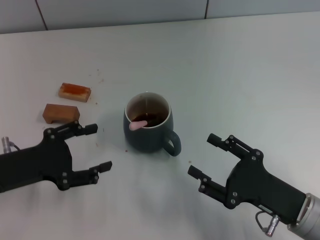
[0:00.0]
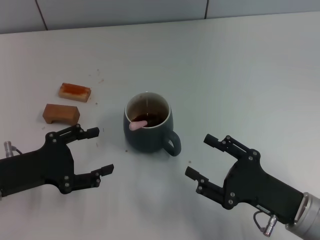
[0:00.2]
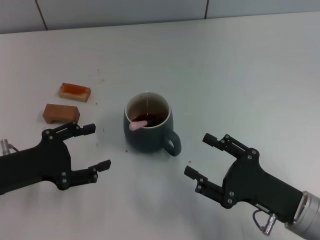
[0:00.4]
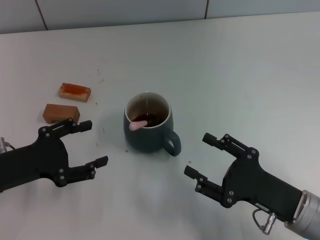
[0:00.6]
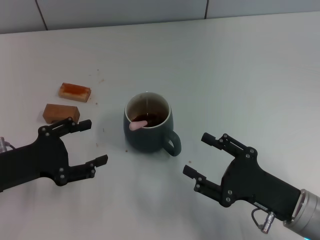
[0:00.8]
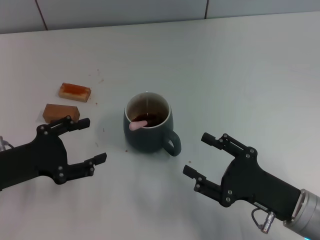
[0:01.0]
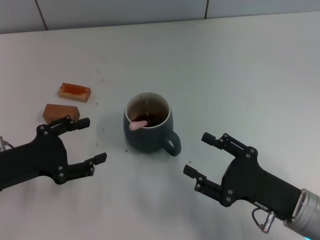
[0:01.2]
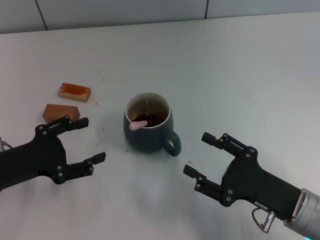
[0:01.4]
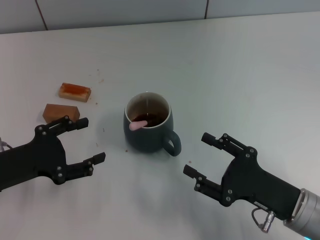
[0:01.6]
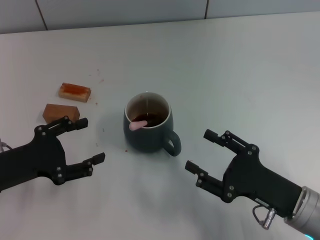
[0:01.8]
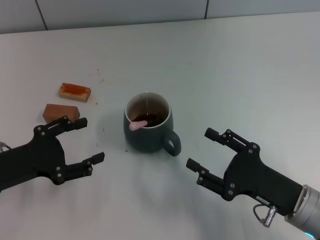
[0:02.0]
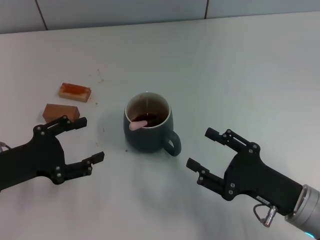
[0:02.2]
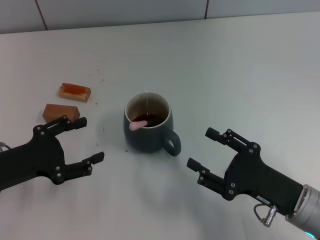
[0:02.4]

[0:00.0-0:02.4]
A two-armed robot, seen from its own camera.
Task of the whole recording: Move the grey cup to the center, lift the pink spoon, stir it three times in the cup, and put the spoon into the cup.
0:00.0 to 0:01.2: The two grippers keep their place.
0:01.2 to 0:02.4: Both grippers stay put.

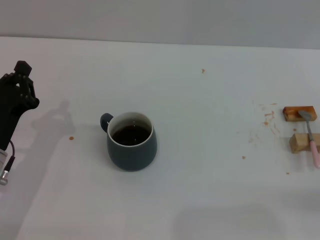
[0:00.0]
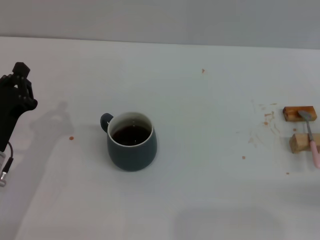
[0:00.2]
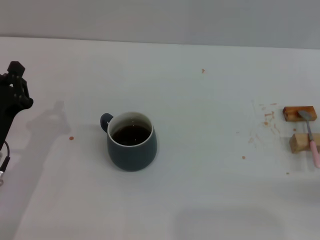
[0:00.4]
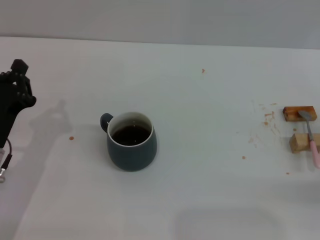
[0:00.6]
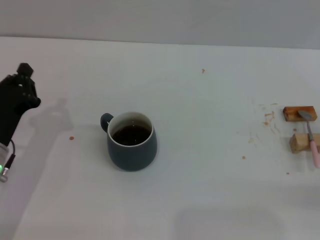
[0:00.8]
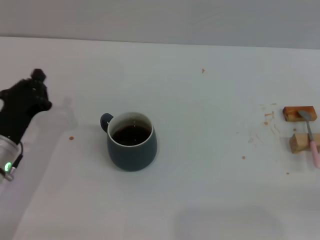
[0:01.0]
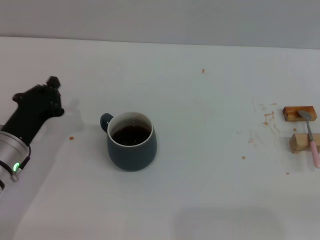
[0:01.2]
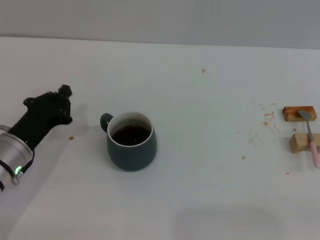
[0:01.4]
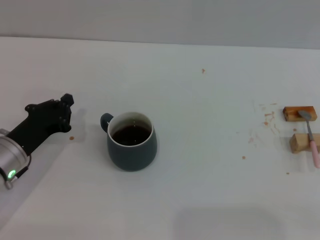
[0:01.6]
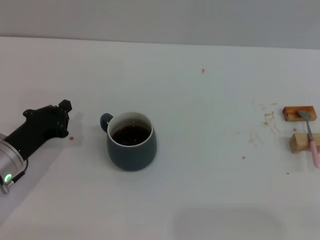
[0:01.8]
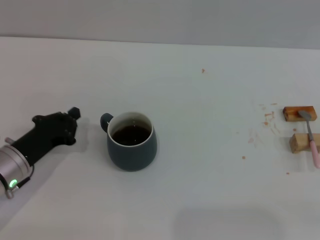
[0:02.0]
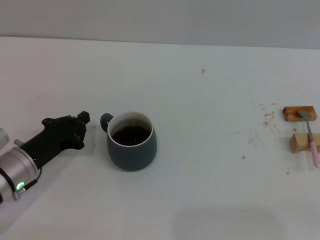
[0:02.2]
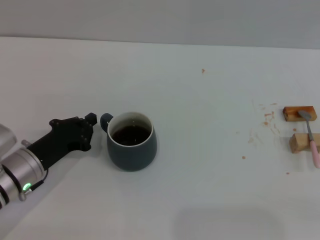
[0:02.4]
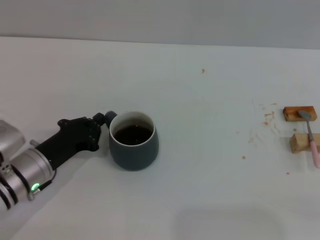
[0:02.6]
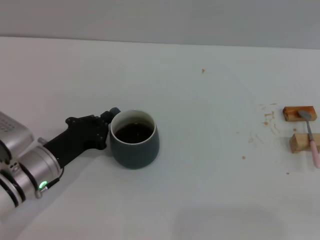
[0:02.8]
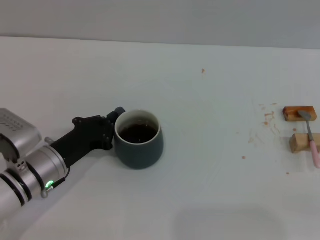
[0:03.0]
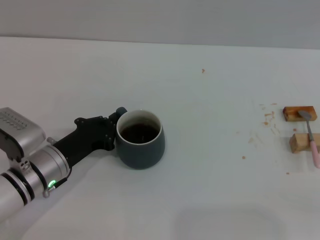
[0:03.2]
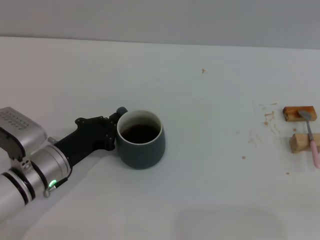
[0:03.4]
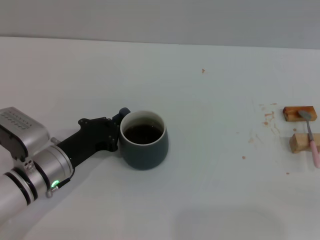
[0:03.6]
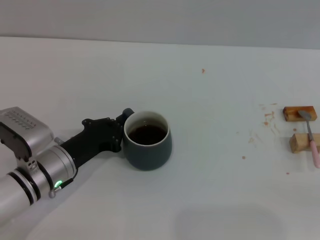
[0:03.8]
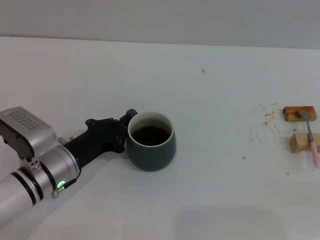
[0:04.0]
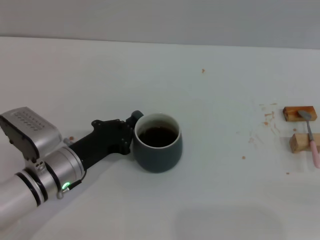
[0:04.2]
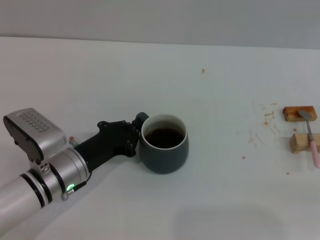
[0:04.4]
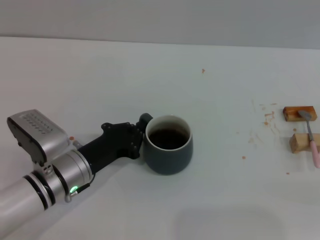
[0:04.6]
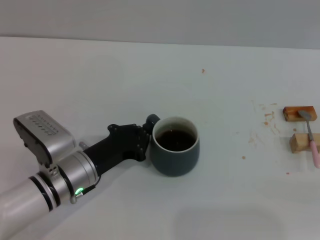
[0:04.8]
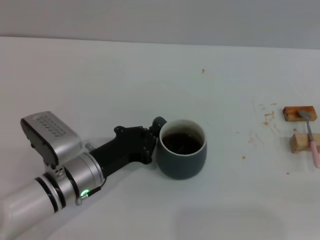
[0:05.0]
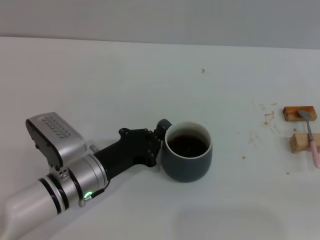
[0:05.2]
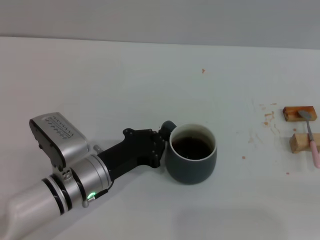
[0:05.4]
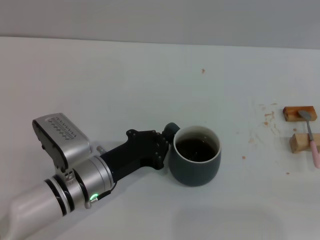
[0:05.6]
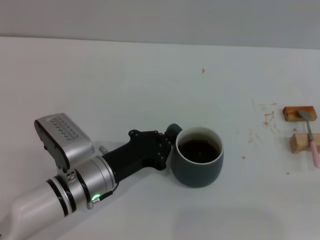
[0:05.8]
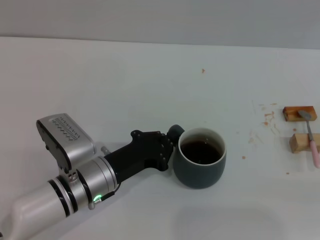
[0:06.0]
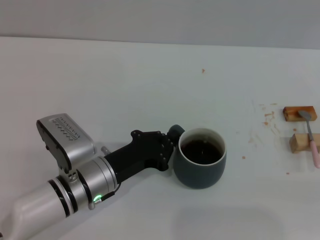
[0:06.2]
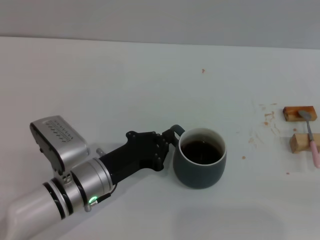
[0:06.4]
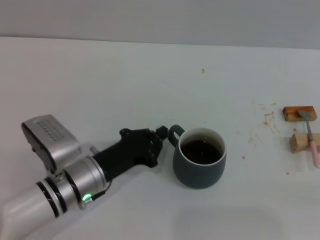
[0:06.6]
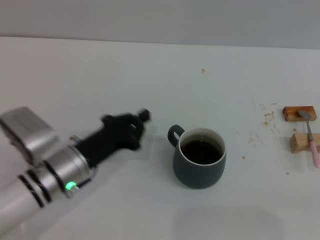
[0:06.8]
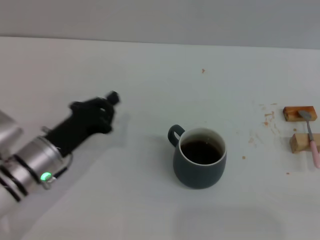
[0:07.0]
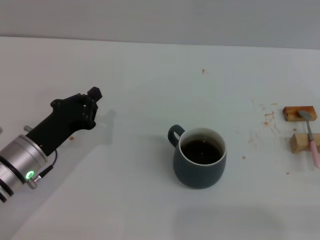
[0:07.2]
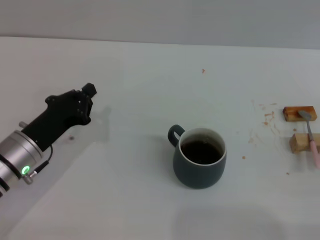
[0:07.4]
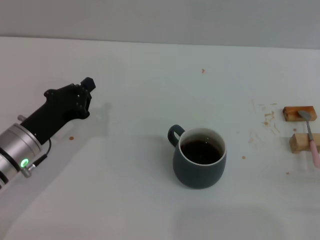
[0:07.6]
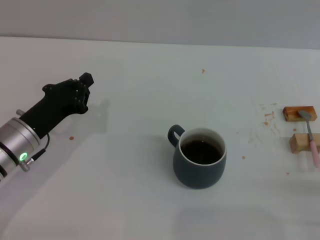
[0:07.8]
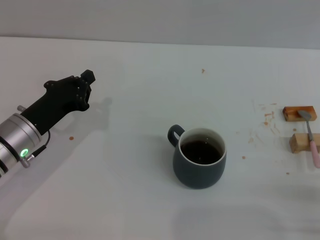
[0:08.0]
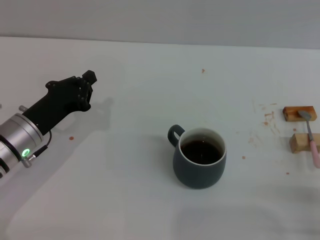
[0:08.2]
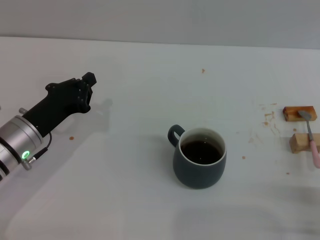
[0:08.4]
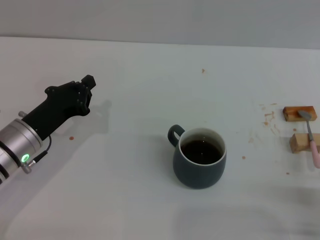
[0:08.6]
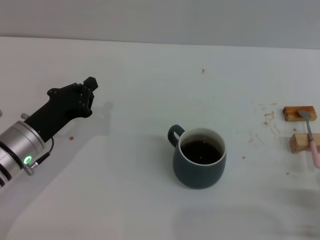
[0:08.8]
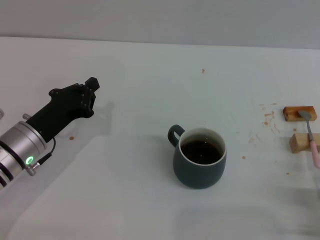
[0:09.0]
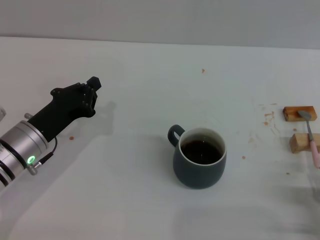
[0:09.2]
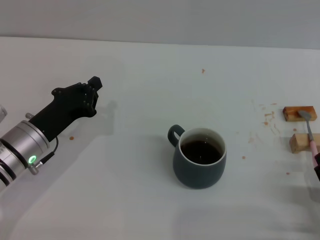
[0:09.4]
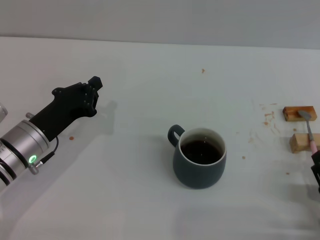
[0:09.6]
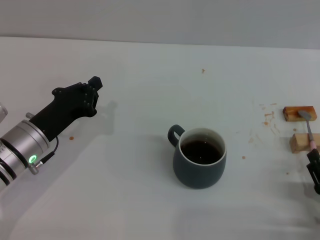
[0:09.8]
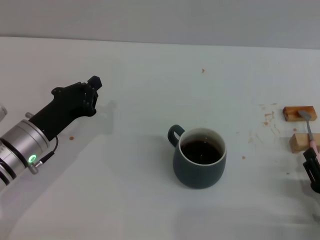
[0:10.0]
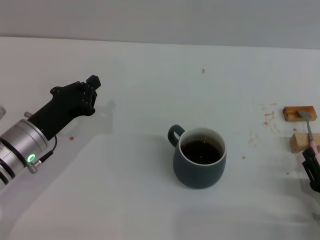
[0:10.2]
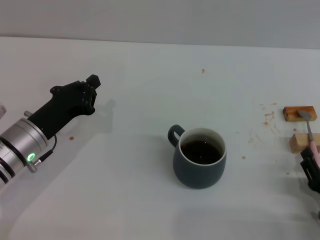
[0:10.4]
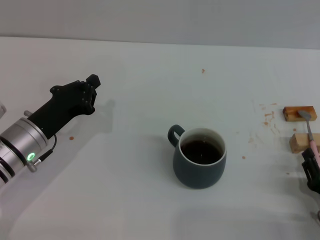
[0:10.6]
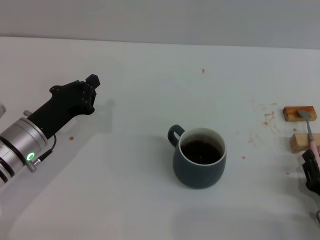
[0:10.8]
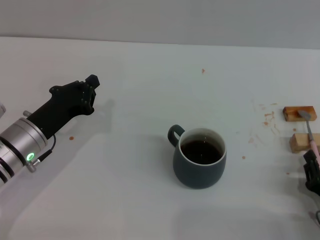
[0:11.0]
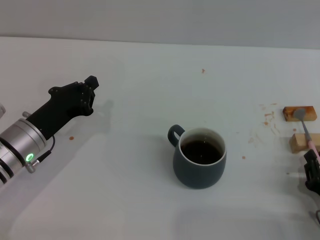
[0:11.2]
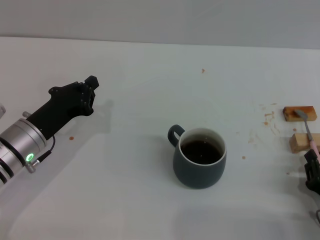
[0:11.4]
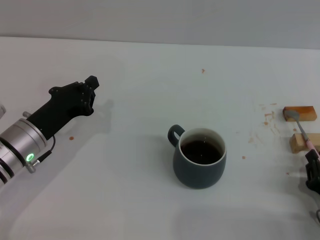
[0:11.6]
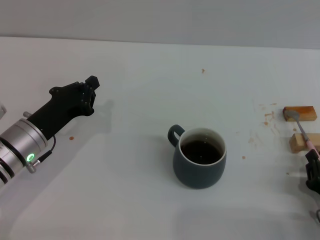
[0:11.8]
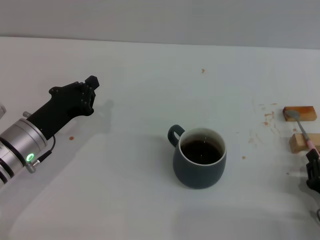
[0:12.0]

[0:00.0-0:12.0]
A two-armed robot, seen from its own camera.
Task of the whole recording: Move the grey cup to the center, lift the pink spoon, stir it three times in the cup, and put the spoon into the cup.
Step, 0:00.0 to 0:06.4: Move the cup with coffee to the center of view with the left gripper.
0:01.6 to 0:03.0: The grippers move only a little.
0:03.0 to 0:04.4: The grippers move only a little.
0:04.4 to 0:06.0: There are only small adjustments of the grippers.
0:06.0 to 0:07.6: The right gripper is displaced to the left and backward by some 15 cm. The left gripper is displaced to the left by approximately 10 cm.
0:07.6 to 0:09.0: The right gripper moves to the left, some 5 cm, and opens up.
0:09.0 to 0:10.4: There are only small adjustments of the grippers.
0:10.4 to 0:12.0: The right gripper closes its fingers.

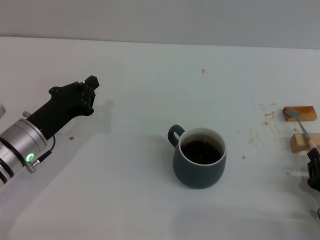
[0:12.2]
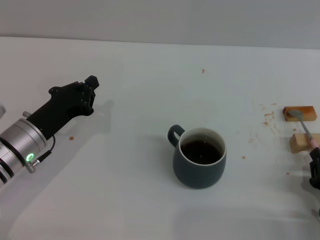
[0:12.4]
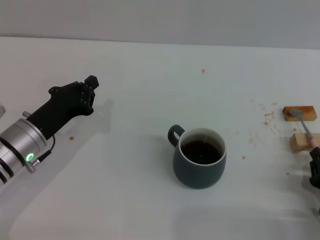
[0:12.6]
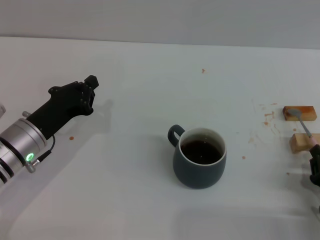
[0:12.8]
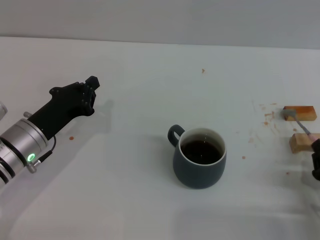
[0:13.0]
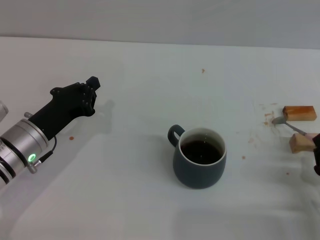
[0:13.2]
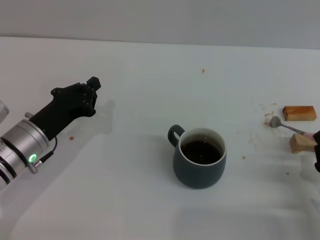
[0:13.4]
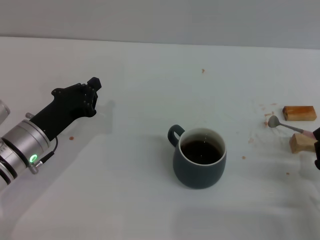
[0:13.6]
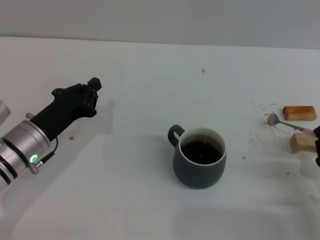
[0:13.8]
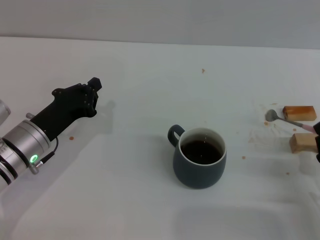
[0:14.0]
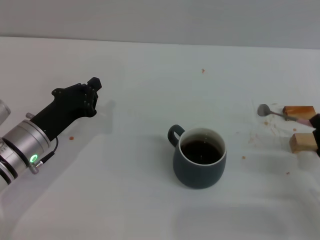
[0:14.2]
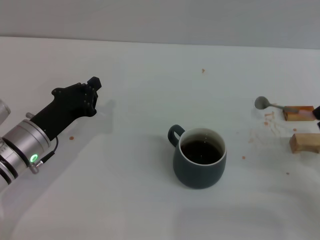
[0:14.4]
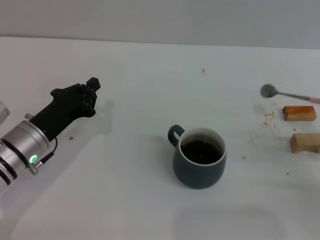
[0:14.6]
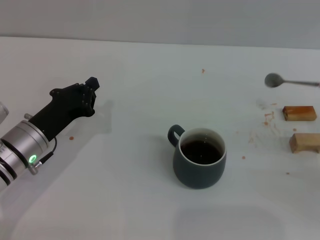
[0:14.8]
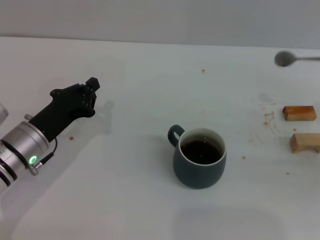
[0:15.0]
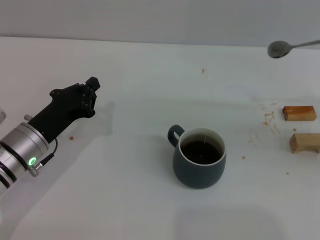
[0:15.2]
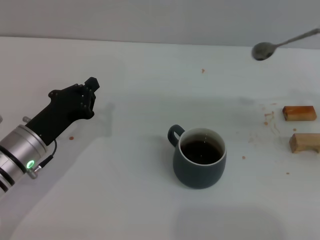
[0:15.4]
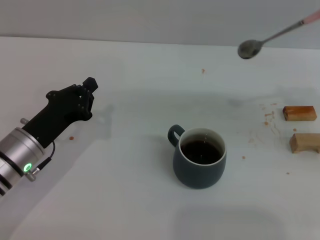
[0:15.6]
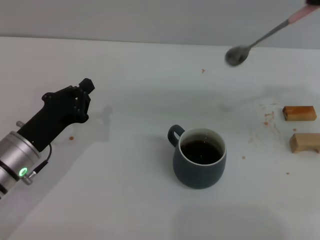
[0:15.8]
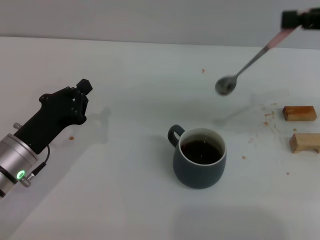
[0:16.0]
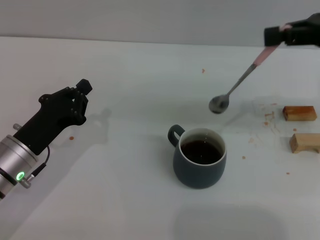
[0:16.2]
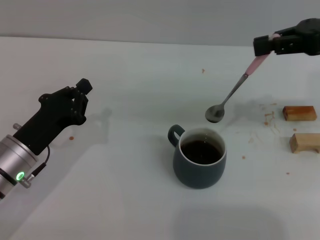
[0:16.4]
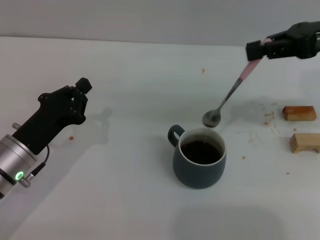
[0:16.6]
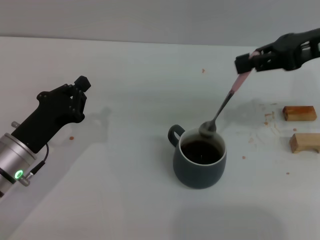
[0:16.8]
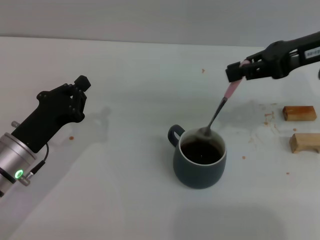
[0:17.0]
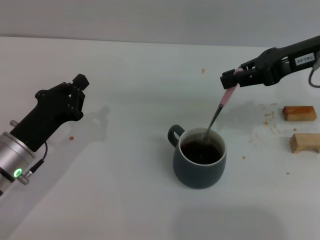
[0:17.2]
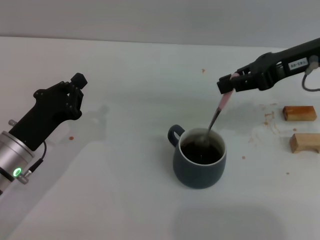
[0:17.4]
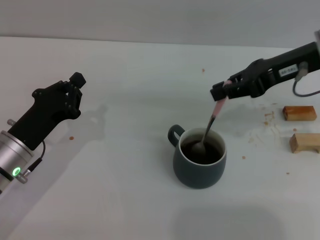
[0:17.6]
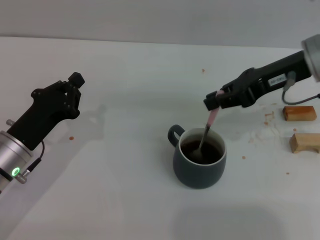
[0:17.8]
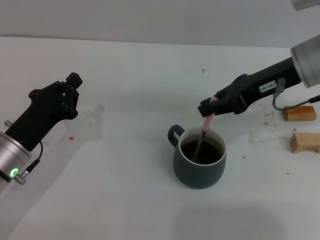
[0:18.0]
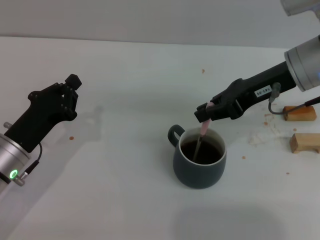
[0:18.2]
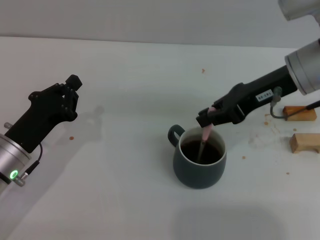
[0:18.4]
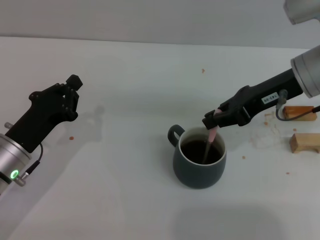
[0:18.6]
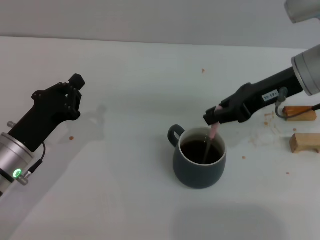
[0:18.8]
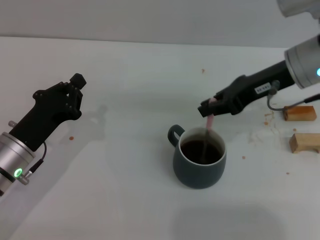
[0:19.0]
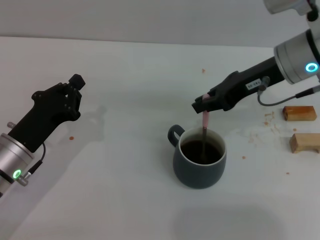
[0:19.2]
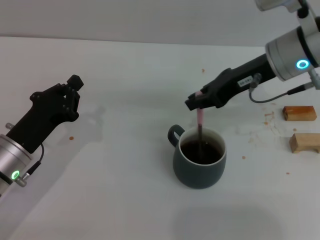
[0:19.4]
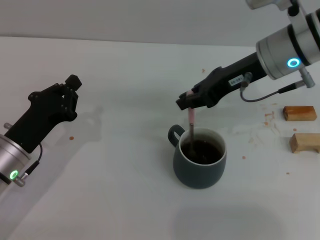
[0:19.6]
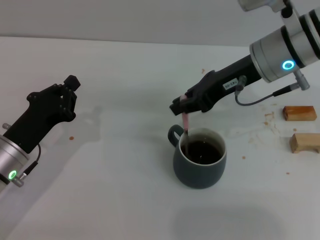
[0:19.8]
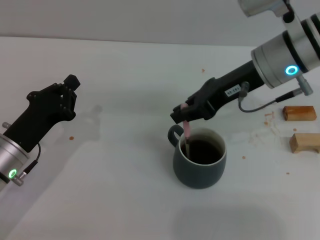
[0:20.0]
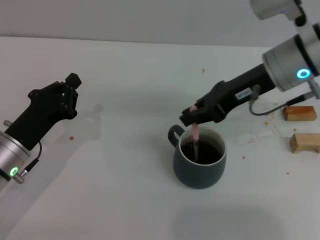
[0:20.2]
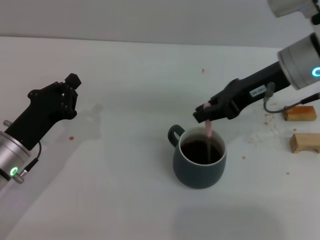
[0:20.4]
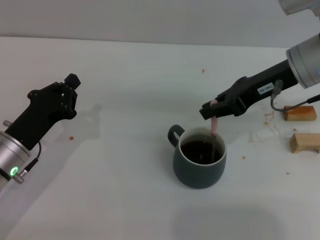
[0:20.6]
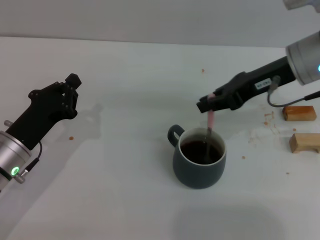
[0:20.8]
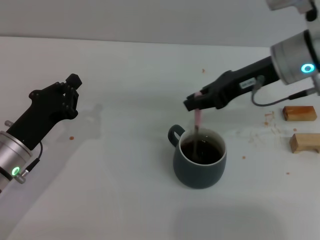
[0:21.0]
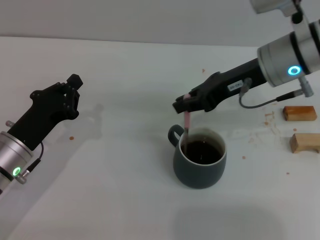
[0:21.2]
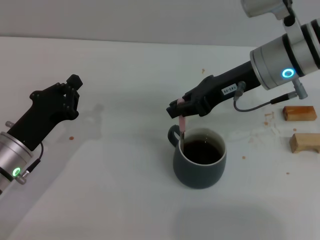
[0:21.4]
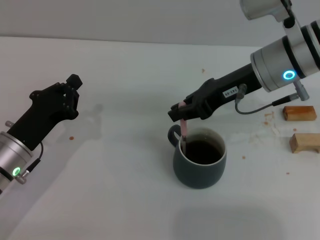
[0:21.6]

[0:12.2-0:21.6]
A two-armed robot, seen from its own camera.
Task of the whole recording: Move the grey cup to the center, lift the pink spoon, stir it three times in the cup, and put the spoon into the cup.
Step, 0:12.2 to 0:15.0: Pick up the spoon with the right gripper.
0:12.2 to 0:13.8: The grippers stay close to where they were, moving slightly.
0:13.8 to 0:15.4: The right gripper heads upward, forward and to the right, covering some 25 cm.
0:15.4 to 0:17.0: The right gripper goes approximately 15 cm to the left and forward.
0:17.0 to 0:18.4: The right gripper is displaced to the left by about 5 cm.
0:18.4 to 0:21.6: The grippers stay close to where they were, moving slightly.
